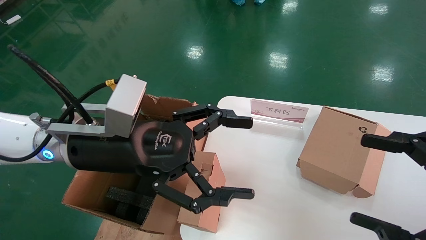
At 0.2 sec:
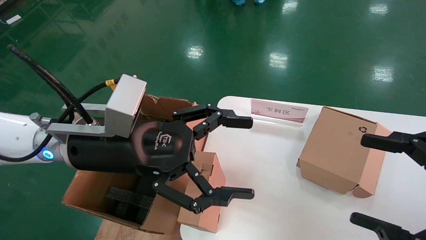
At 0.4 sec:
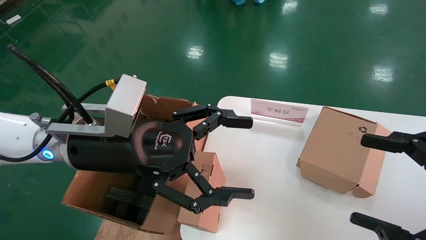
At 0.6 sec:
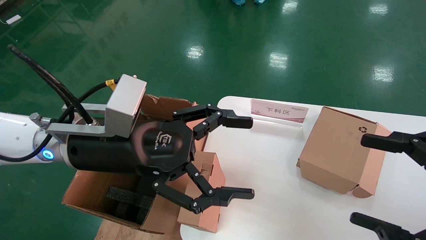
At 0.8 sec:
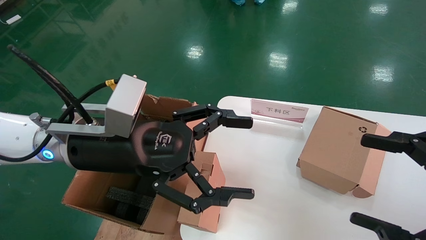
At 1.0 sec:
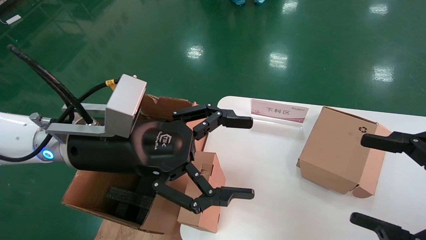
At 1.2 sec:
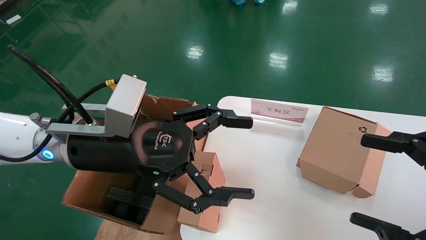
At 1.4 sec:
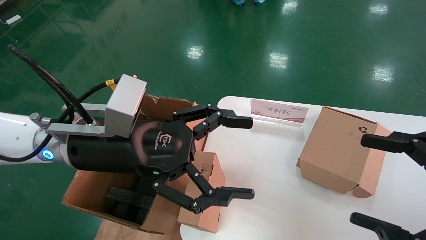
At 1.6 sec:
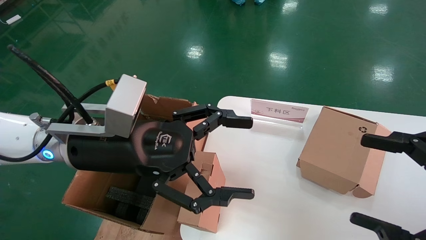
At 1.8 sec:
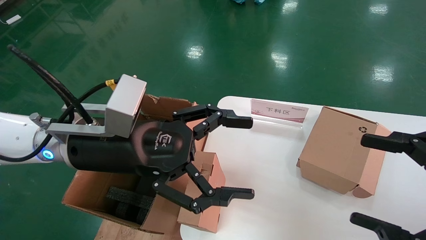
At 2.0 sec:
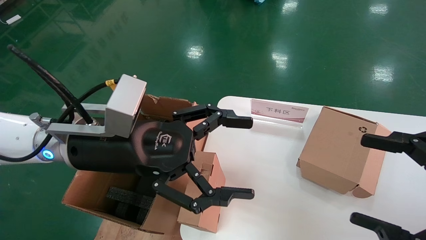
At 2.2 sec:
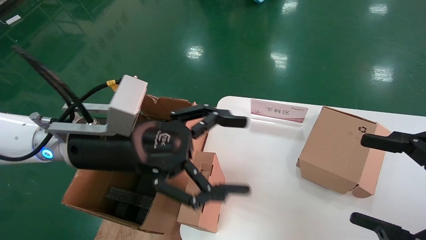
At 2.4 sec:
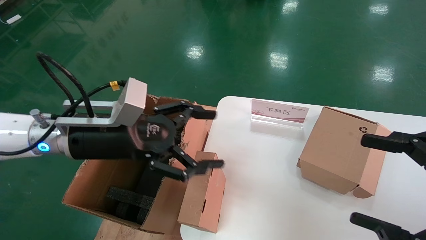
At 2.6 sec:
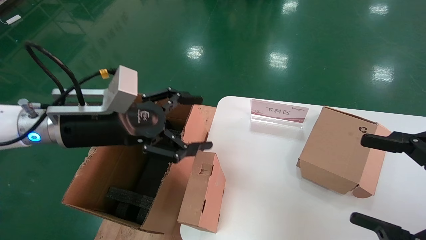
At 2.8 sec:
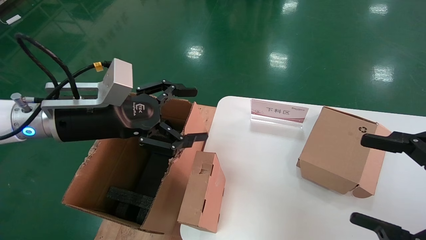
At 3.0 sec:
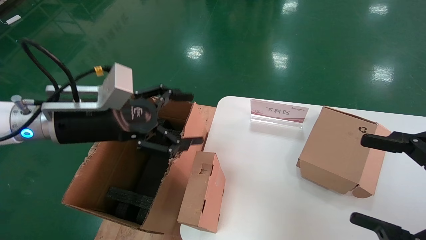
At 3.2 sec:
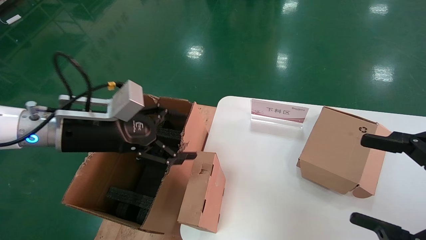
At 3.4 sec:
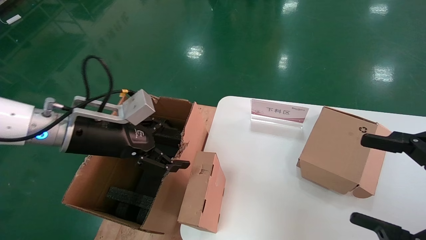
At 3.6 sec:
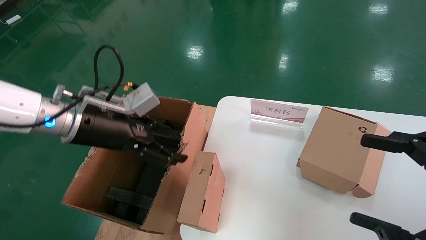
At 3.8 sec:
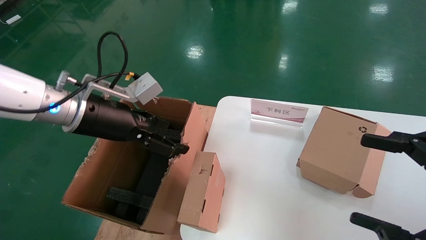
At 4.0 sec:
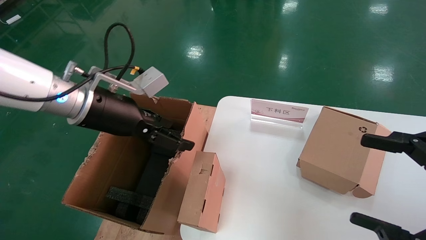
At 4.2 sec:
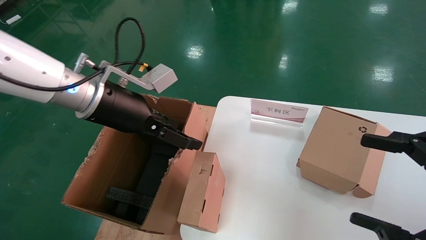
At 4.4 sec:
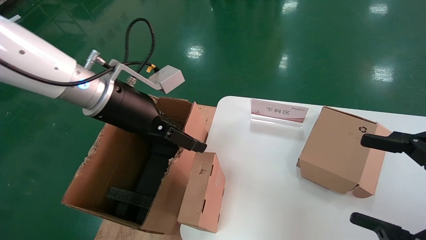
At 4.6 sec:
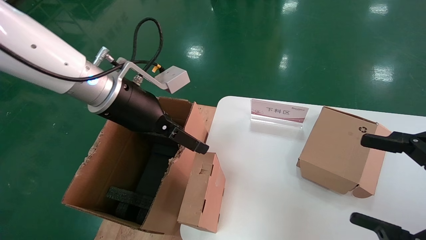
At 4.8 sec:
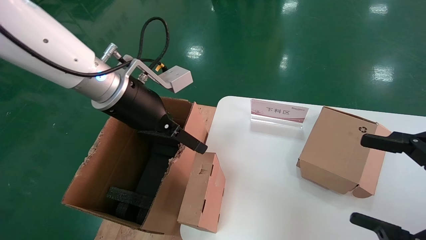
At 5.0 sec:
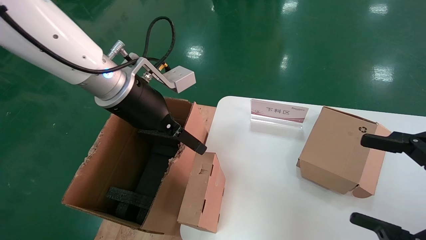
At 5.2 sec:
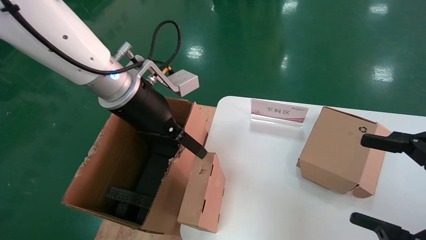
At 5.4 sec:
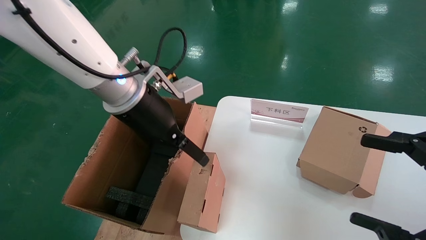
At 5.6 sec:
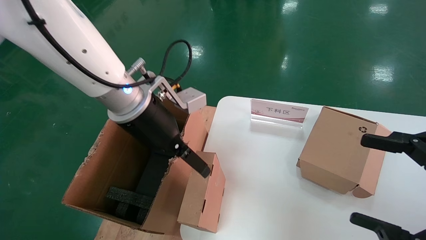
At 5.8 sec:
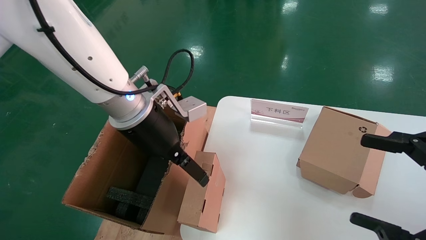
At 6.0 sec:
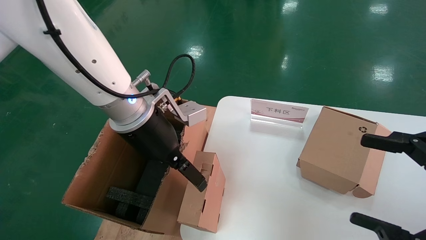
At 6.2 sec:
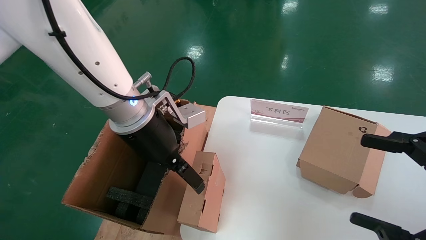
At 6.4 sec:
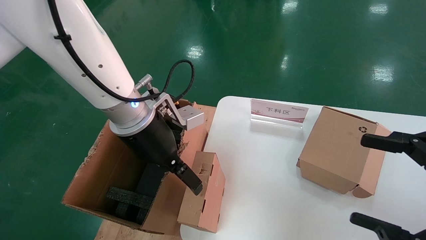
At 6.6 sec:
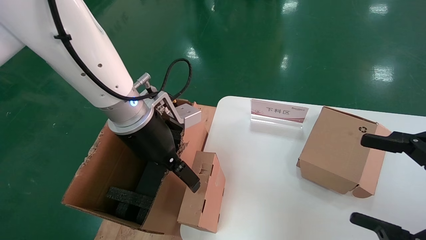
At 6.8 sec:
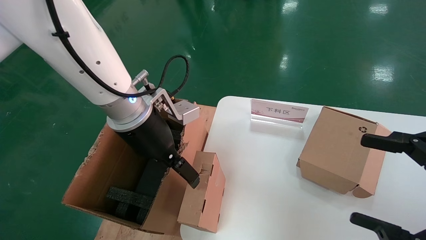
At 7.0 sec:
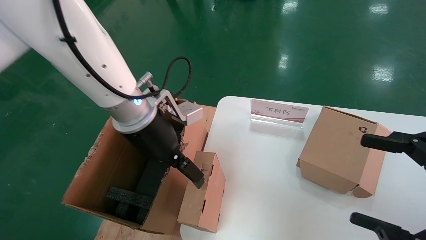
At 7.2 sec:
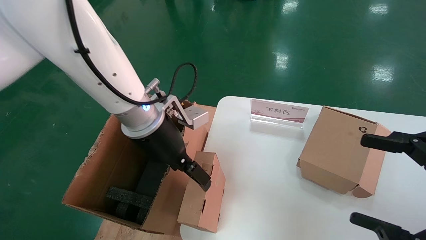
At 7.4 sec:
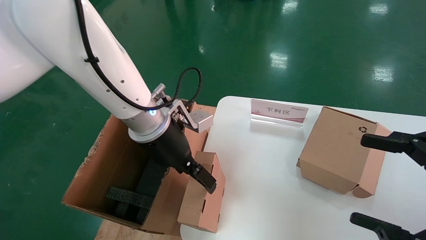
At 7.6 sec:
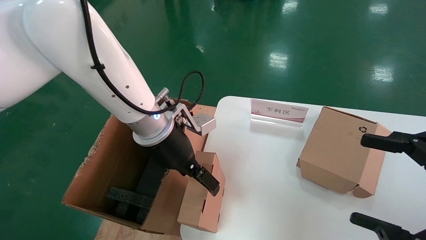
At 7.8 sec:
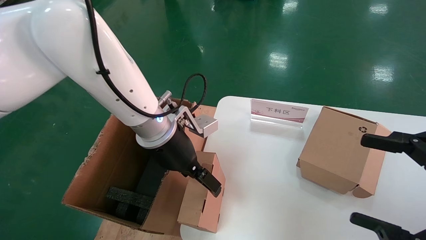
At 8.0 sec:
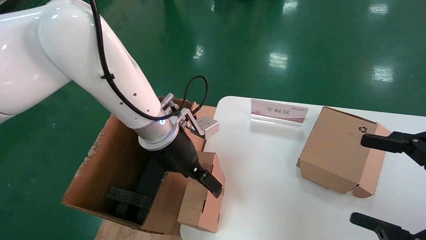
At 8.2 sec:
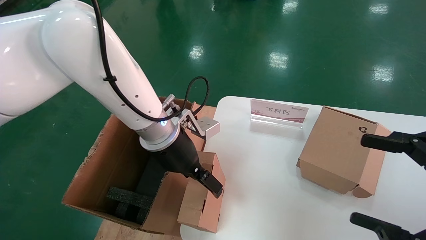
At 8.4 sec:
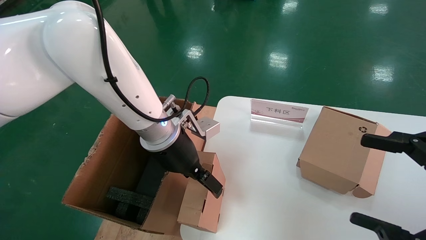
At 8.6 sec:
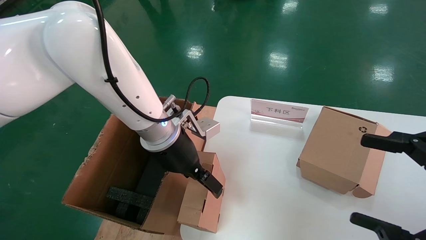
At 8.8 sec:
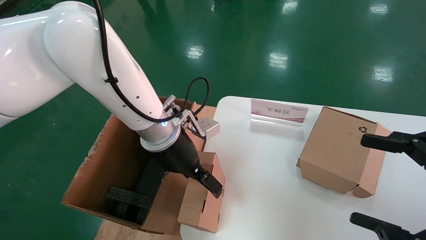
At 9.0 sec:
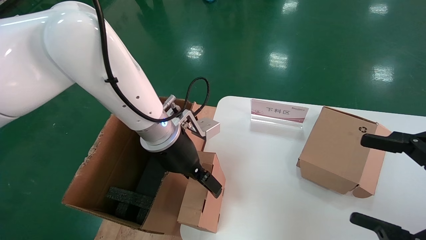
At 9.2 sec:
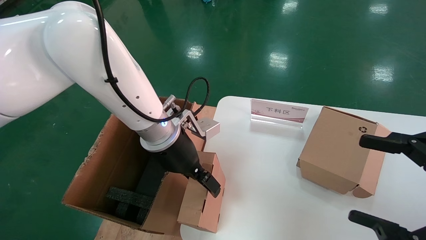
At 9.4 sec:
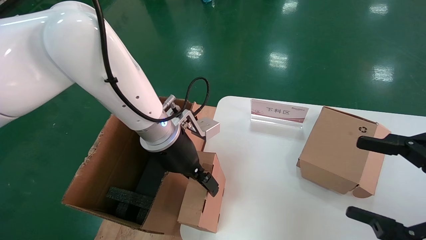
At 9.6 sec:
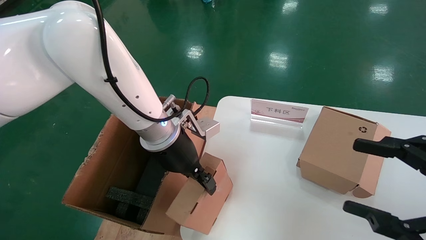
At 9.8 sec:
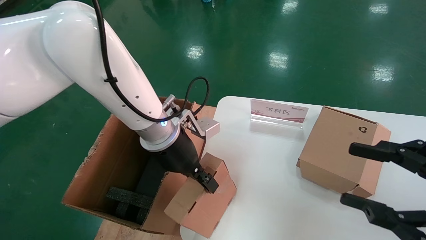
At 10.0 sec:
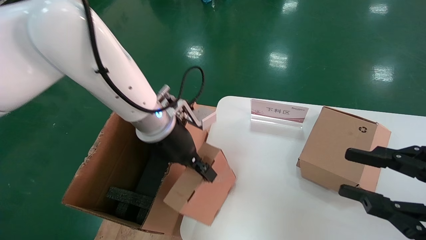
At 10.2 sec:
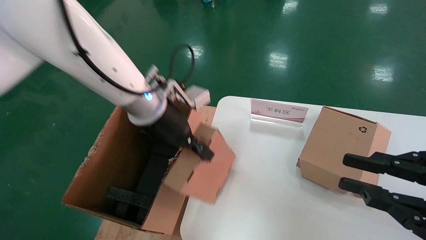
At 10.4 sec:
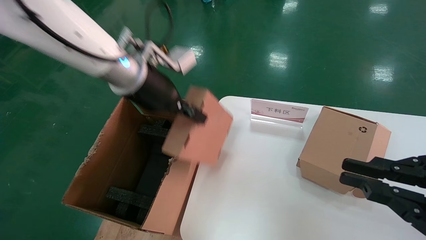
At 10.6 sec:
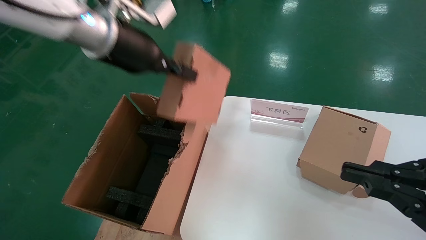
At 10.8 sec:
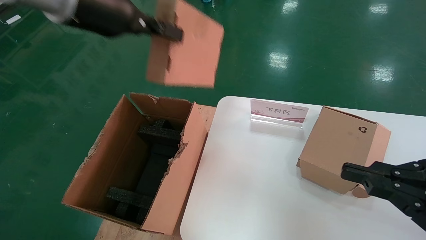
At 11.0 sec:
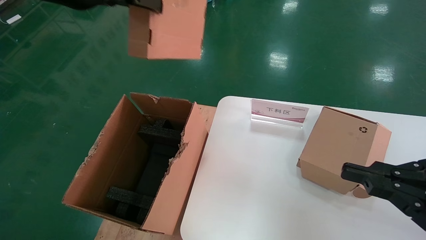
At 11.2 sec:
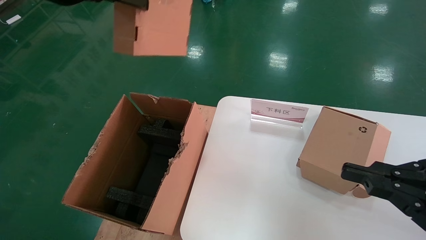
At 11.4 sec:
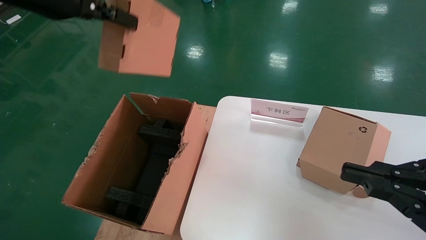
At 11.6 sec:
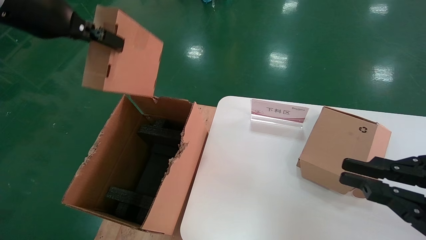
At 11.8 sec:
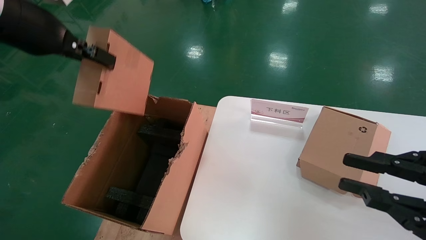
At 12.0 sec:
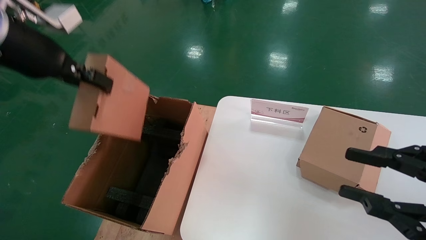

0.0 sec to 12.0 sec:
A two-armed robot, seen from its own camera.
Task of the whole recording: put the box on the table into the big box.
Step, 0.0 sec to 9.6 sec: Grasp the paper box.
0.0 sec to 1.6 sec: Both grippers stay about where they are.
1.6 sec to 3.0 sec: The left gripper moves to the left, approximately 10 cm.
3.0 sec to 4.4 sec: The left gripper shifts some 5 cm to the right.
4.4 sec to 6.0 sec: The left gripper goes roughly 5 cm to the right.
6.0 sec to 7.6 sec: The grippers make only small movements.
7.6 sec to 9.0 sec: The grippers make only small movements.
9.0 sec to 10.4 sec: The left gripper heads upward and to the left, covering roughly 15 cm, and closes its fingers; the right gripper closes up.
10.4 sec to 12.0 sec: The left gripper goes some 15 cm to the left and backward.

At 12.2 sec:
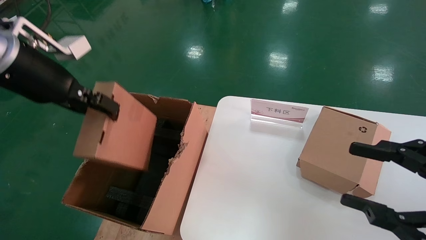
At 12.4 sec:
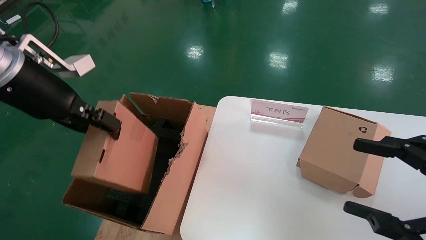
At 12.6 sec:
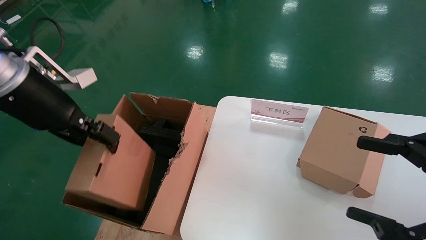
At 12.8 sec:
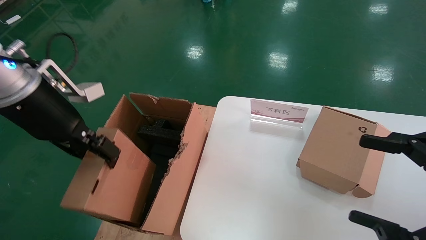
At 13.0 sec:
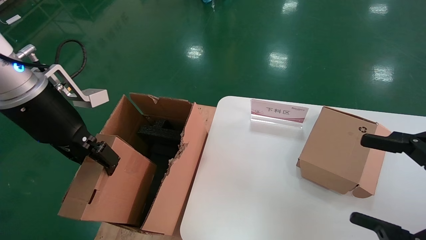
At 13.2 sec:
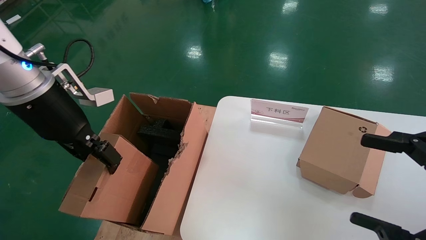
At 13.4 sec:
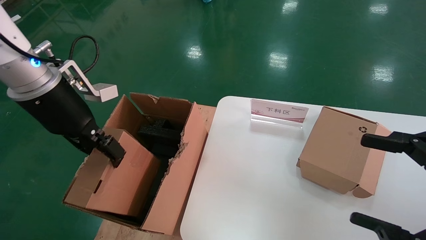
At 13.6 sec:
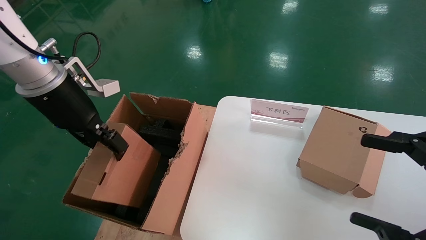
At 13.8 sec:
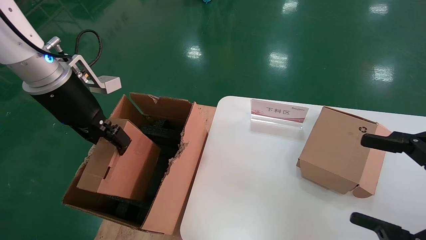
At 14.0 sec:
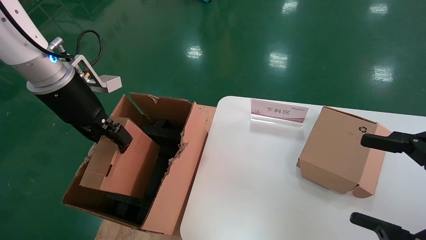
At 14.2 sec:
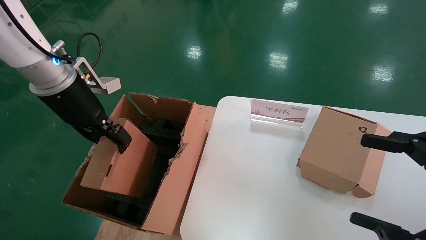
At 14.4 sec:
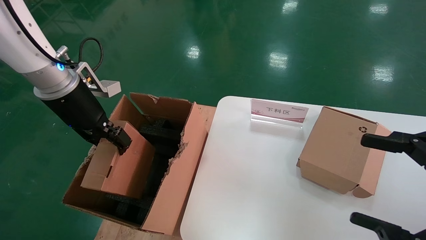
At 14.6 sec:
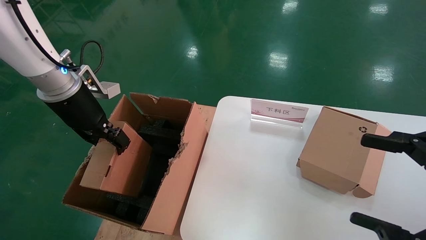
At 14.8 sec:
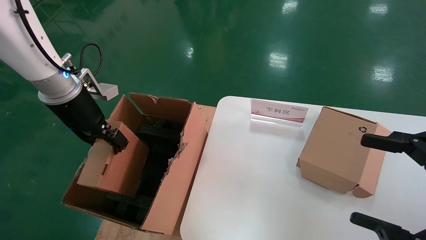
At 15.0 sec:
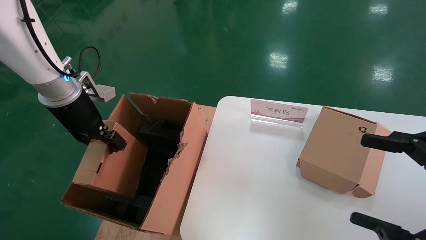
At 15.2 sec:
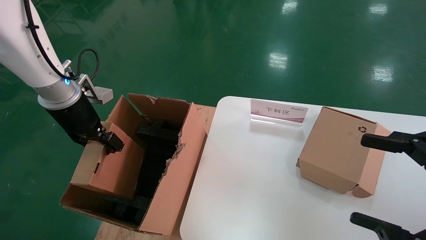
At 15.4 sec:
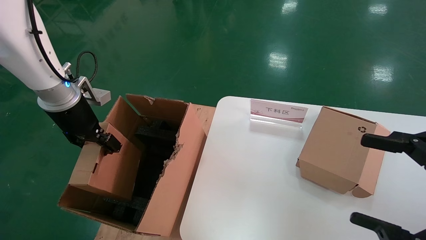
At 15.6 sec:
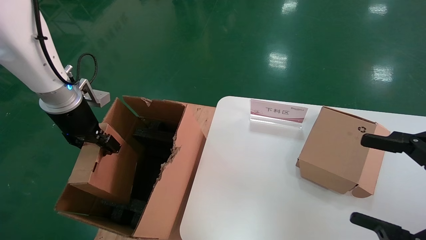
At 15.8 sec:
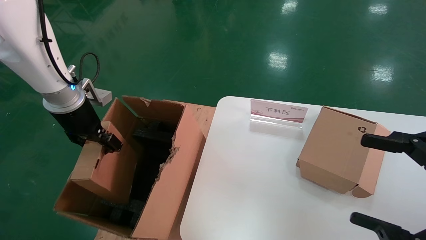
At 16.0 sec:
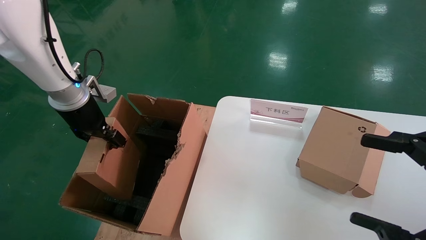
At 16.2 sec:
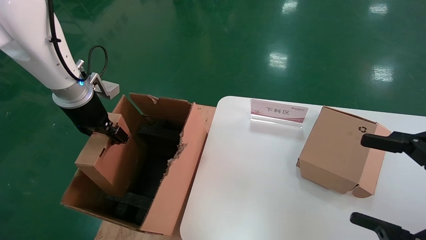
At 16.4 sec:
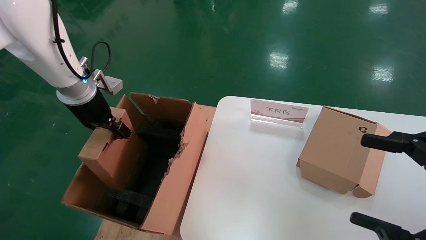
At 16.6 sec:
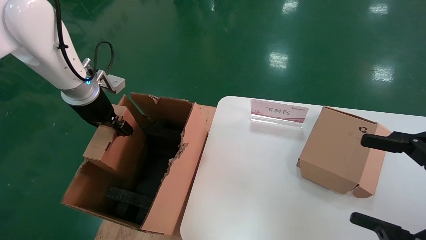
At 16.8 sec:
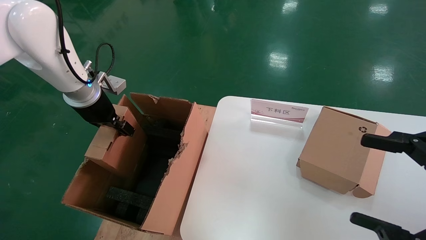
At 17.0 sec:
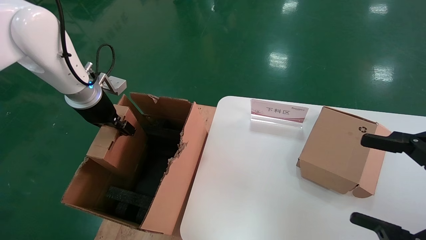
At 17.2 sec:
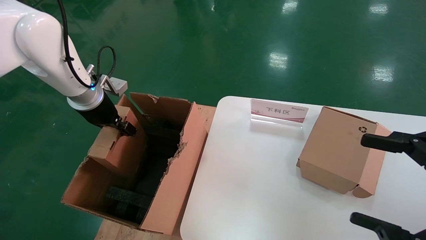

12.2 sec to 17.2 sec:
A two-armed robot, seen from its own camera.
Task of the whole recording: put the box on the table into the big box.
12.2 sec to 13.8 sec: The left gripper moves forward, roughly 5 cm. Meanwhile the right gripper opens its fingers.
13.8 sec to 15.6 sec: The left gripper shifts approximately 5 cm downward.
15.6 sec to 17.2 sec: The grippers stay close to where they were, moving slightly.
